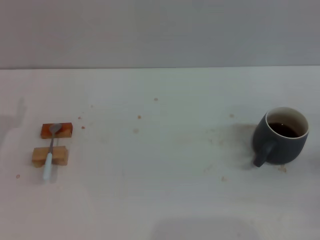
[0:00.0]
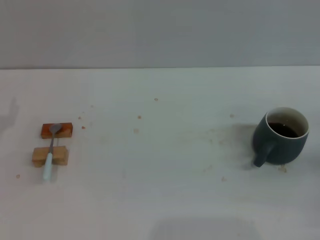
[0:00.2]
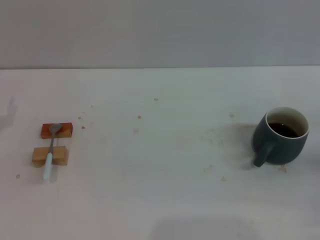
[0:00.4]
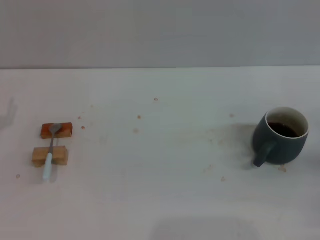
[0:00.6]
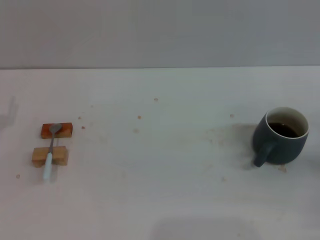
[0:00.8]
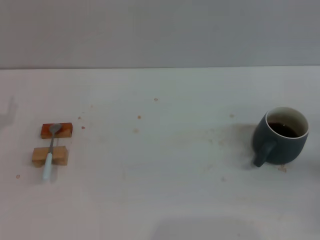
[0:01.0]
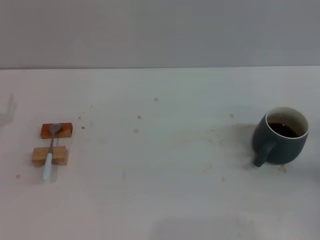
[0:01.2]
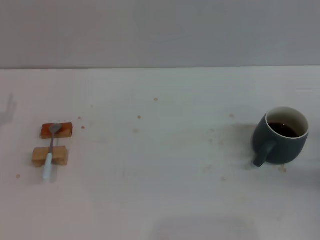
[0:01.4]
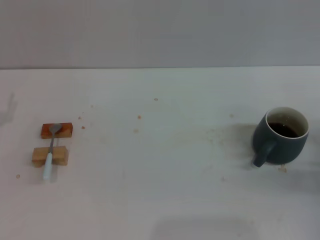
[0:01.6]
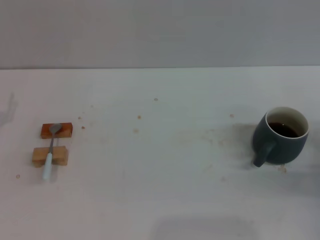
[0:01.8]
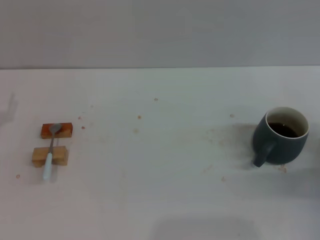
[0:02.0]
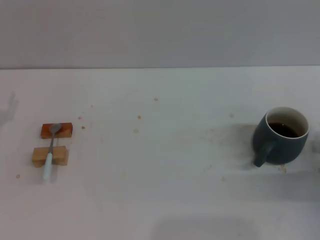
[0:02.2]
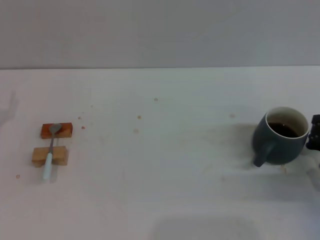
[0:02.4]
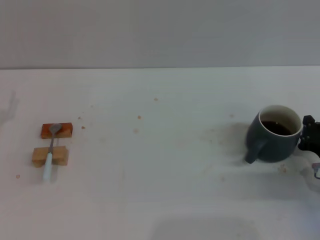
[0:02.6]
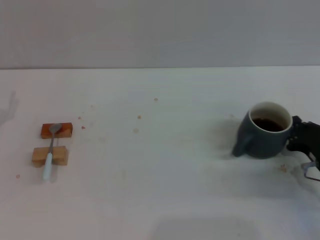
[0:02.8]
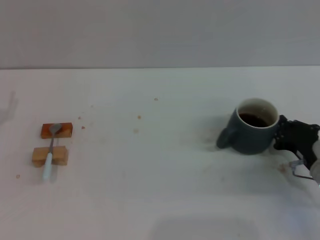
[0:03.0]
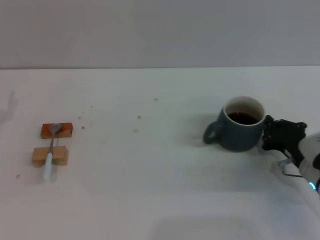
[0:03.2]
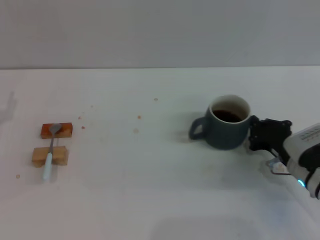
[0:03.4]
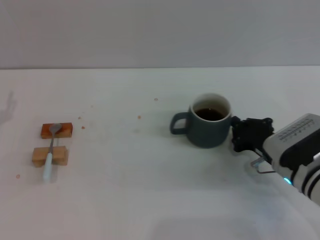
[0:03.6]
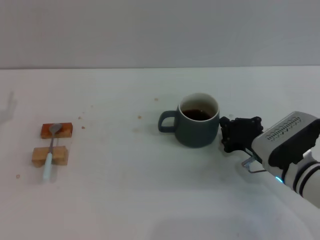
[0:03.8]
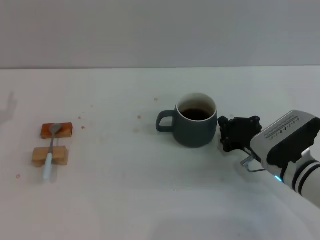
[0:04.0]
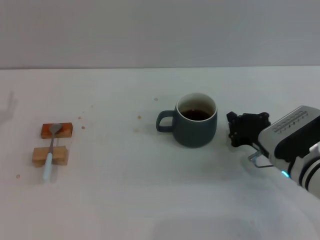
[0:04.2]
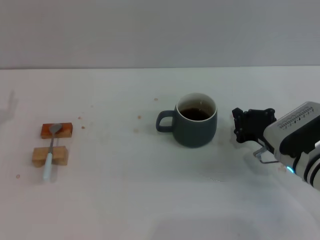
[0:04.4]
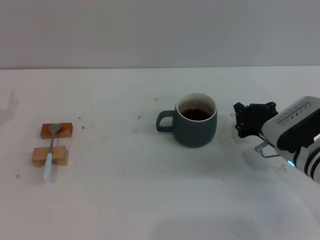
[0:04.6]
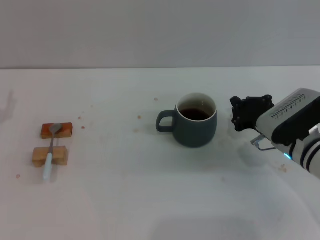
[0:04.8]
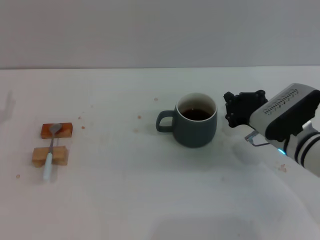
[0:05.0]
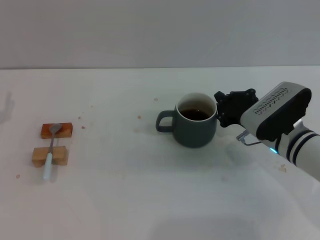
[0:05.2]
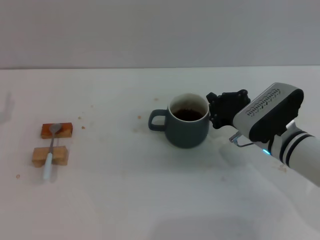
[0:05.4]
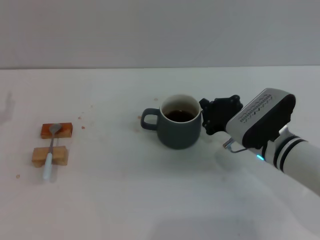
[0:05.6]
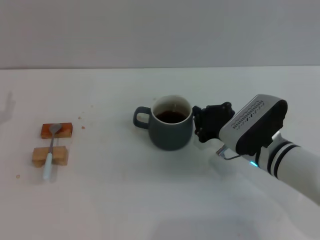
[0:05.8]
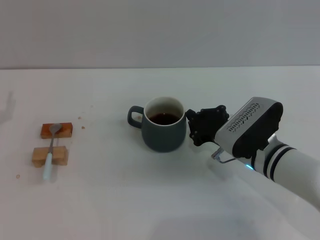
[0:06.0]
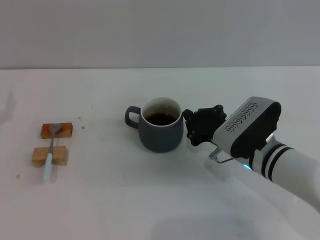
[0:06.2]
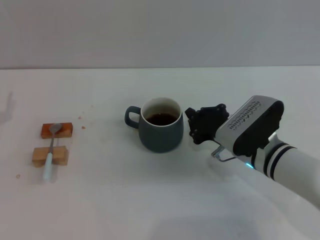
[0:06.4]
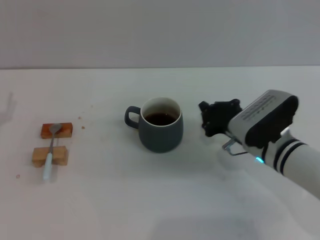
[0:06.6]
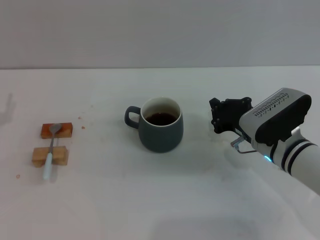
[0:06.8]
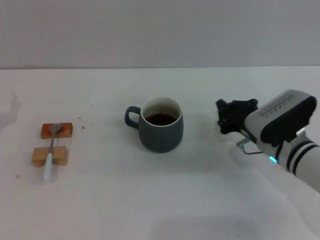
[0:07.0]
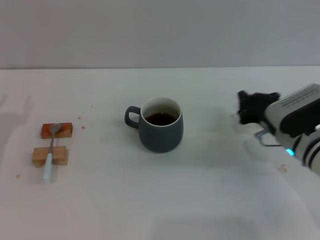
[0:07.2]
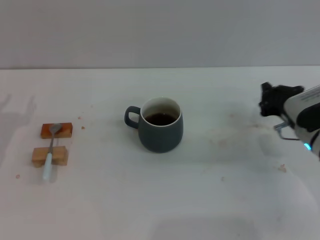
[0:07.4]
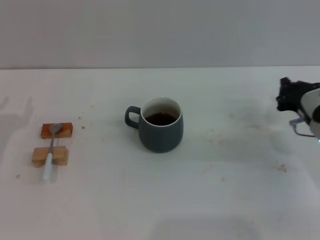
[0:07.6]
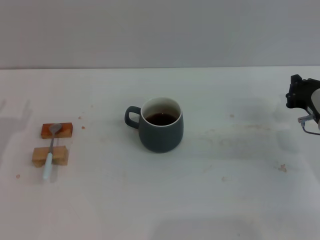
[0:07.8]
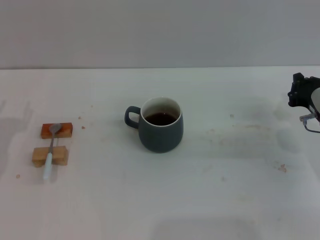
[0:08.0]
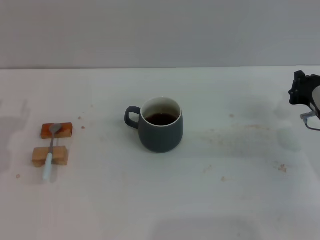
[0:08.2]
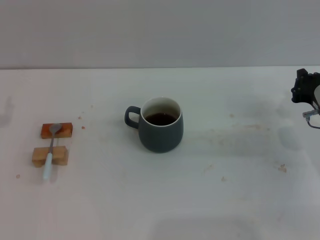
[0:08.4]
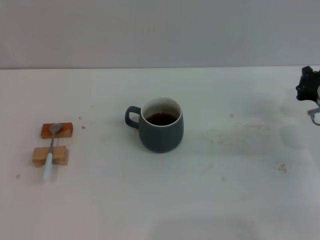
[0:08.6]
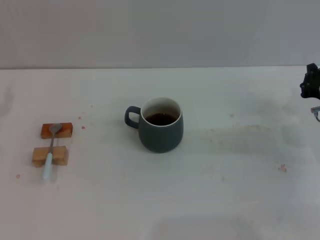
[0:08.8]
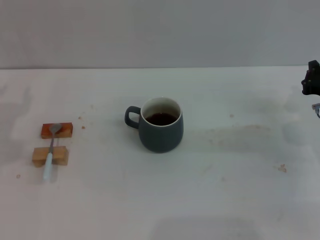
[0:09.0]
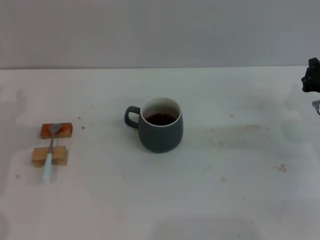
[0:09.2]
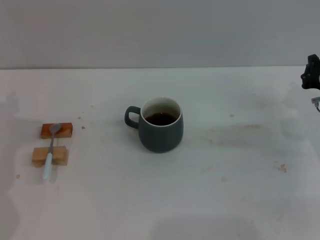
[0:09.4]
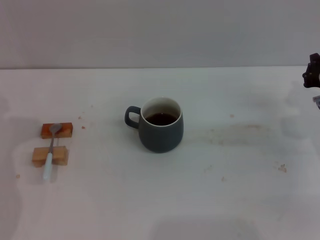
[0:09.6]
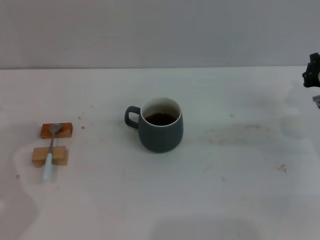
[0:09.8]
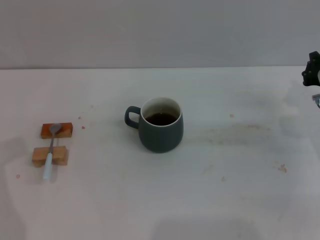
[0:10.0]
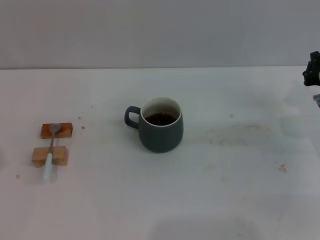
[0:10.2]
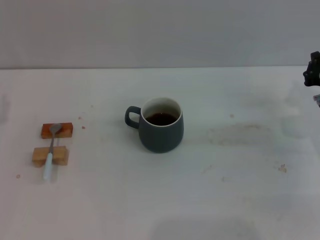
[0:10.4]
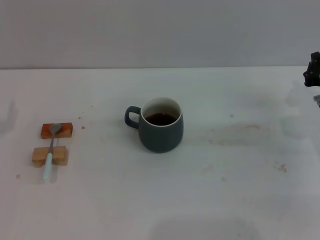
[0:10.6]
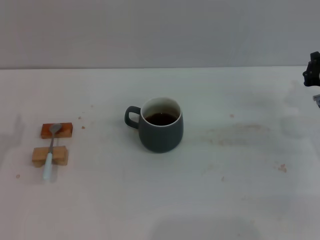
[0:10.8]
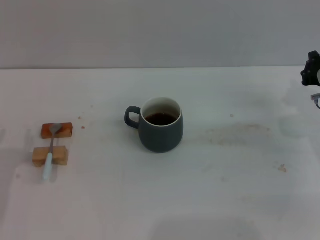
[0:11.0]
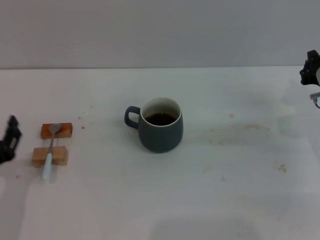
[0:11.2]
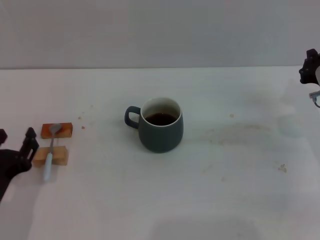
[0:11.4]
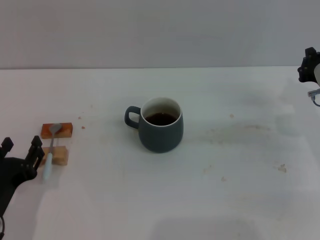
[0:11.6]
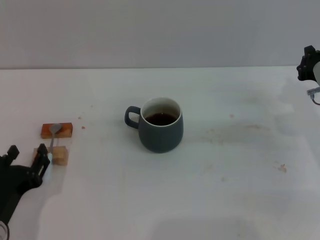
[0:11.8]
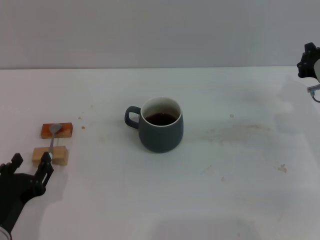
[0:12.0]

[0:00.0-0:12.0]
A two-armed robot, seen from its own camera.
Task of the whole recording: Move the grey cup to the center, lift the blue spoon, stir it three times in the cup, and put the spoon into the cup.
Step, 0:00.0 to 0:07.6: Move the cup with coffee to the center of view with the right gripper.
0:01.6 to 0:03.0: The right gripper shifts approximately 10 cm to the left.
0:03.0 to 0:04.4: The right gripper shifts by approximately 5 cm.
0:04.4 to 0:06.0: The right gripper travels to the left by approximately 5 cm.
0:06.0 to 0:07.6: The right gripper goes about 10 cm to the right.
0:10.4 to 0:12.0: The left gripper shifts approximately 20 cm to the right, backward and downward.

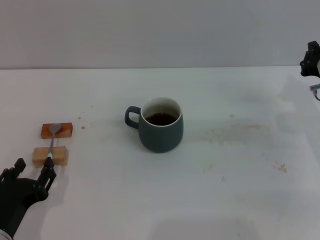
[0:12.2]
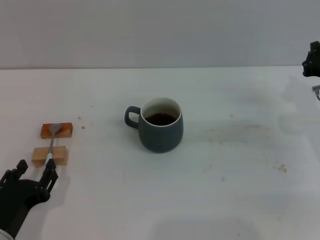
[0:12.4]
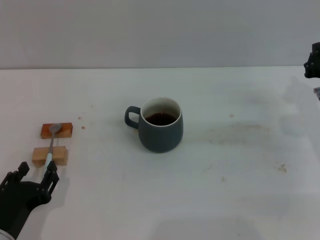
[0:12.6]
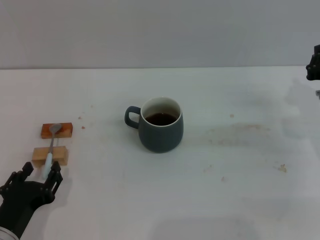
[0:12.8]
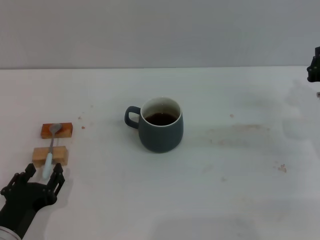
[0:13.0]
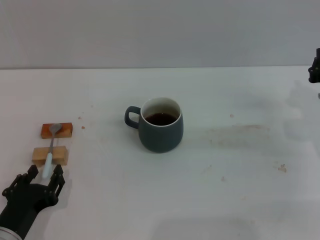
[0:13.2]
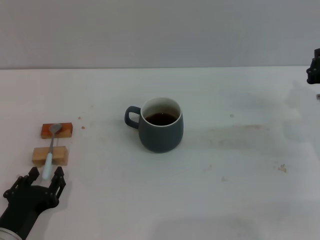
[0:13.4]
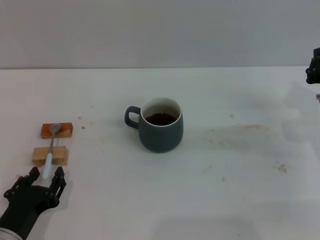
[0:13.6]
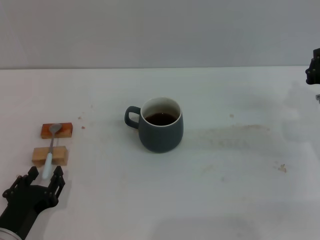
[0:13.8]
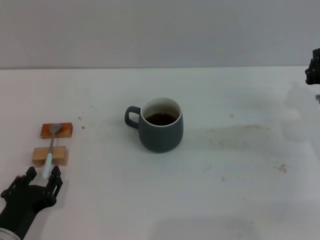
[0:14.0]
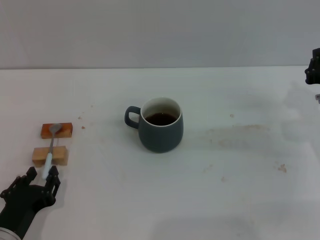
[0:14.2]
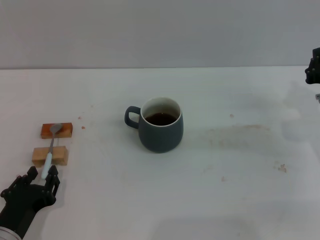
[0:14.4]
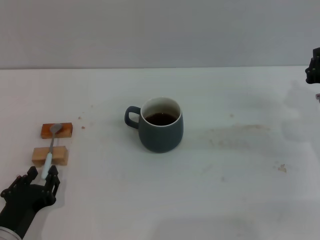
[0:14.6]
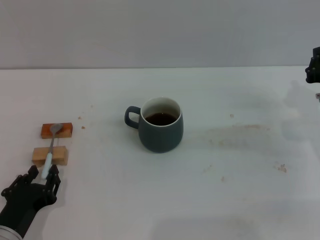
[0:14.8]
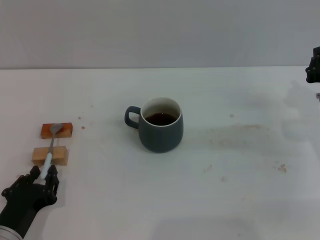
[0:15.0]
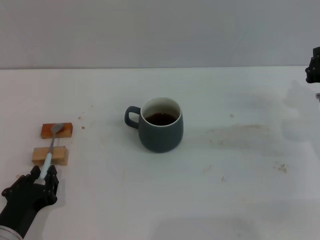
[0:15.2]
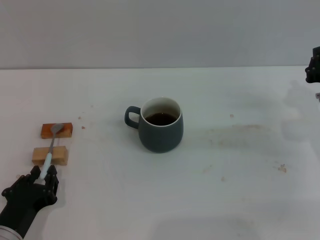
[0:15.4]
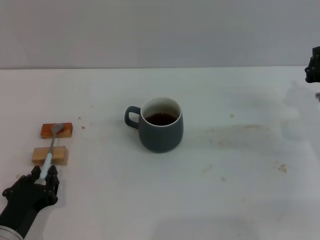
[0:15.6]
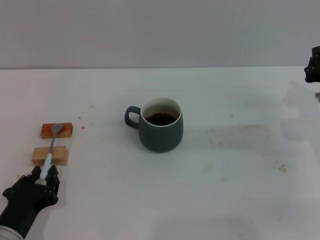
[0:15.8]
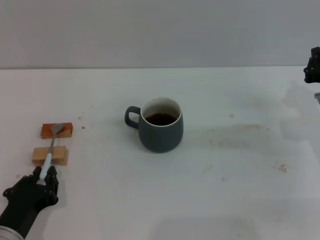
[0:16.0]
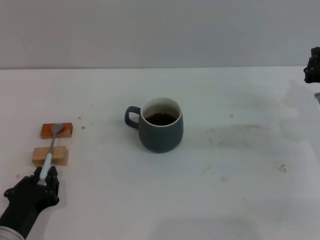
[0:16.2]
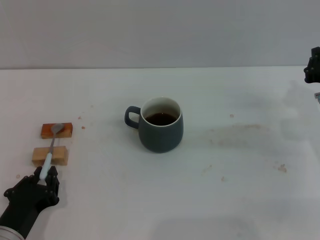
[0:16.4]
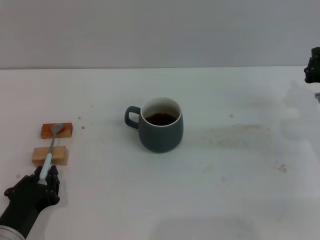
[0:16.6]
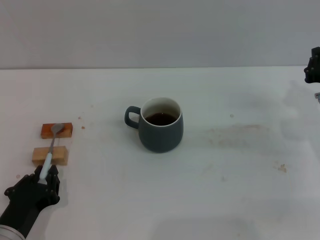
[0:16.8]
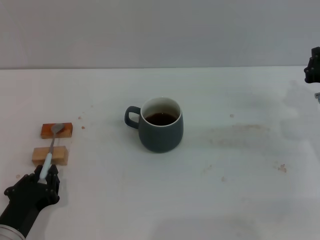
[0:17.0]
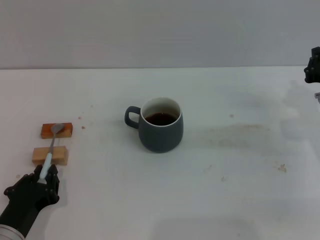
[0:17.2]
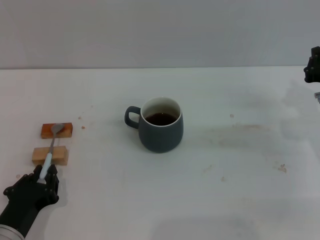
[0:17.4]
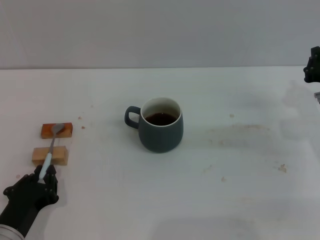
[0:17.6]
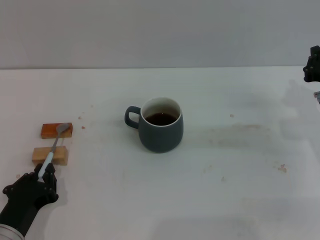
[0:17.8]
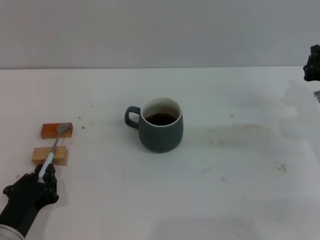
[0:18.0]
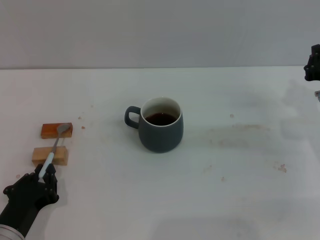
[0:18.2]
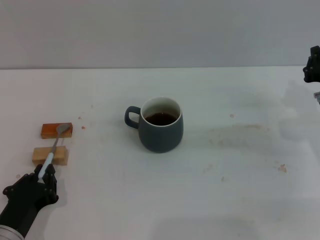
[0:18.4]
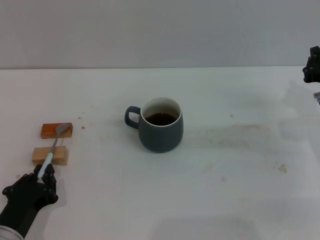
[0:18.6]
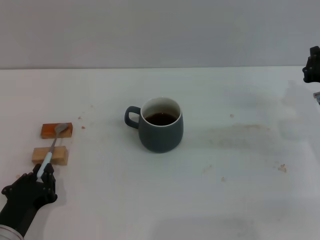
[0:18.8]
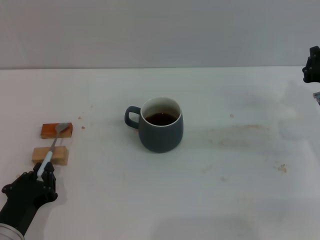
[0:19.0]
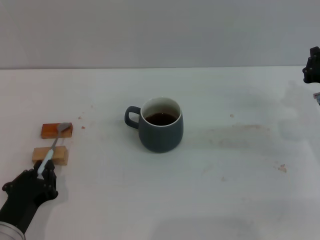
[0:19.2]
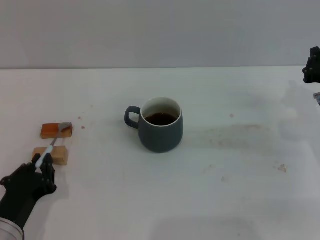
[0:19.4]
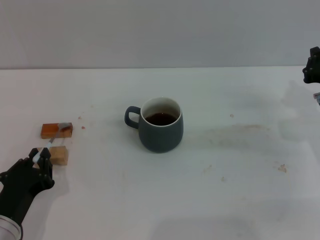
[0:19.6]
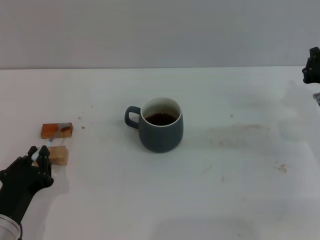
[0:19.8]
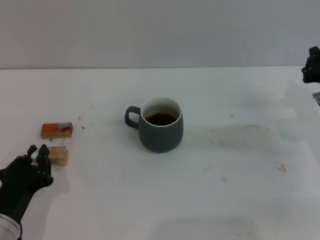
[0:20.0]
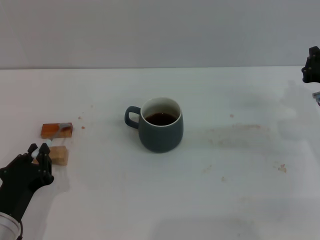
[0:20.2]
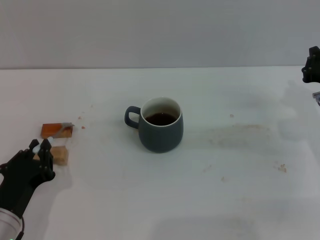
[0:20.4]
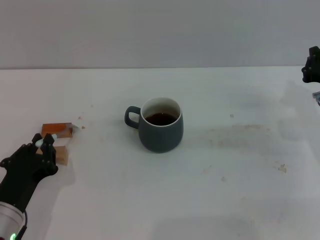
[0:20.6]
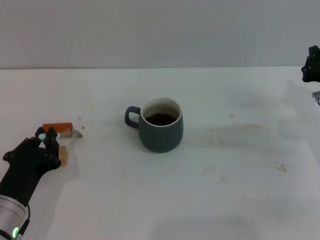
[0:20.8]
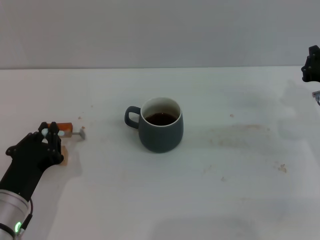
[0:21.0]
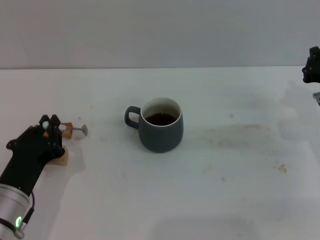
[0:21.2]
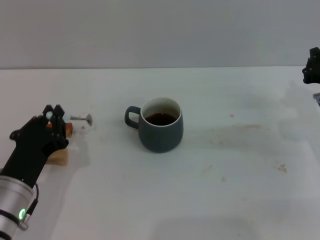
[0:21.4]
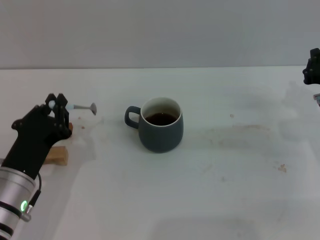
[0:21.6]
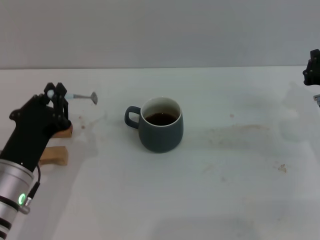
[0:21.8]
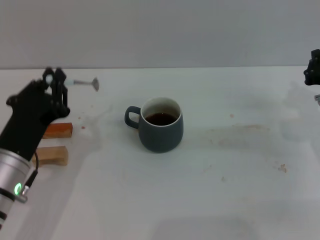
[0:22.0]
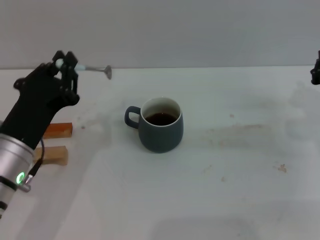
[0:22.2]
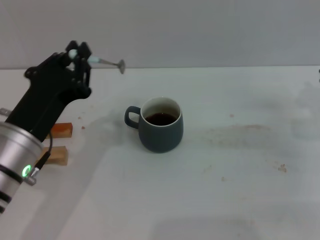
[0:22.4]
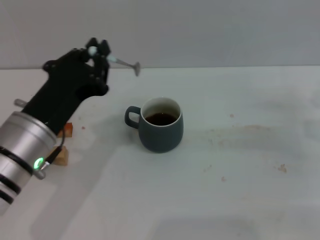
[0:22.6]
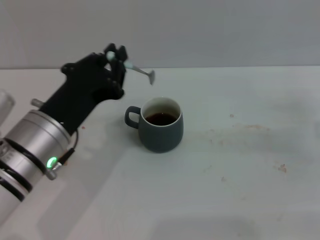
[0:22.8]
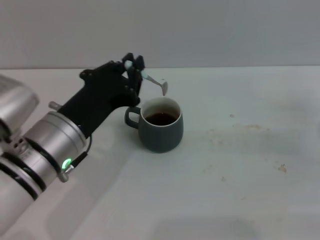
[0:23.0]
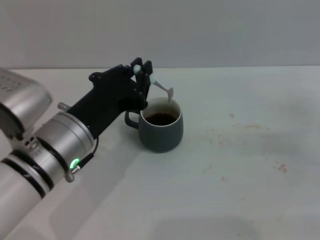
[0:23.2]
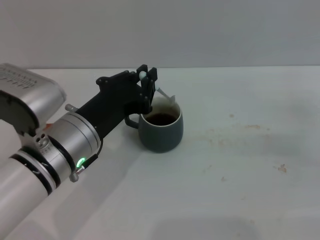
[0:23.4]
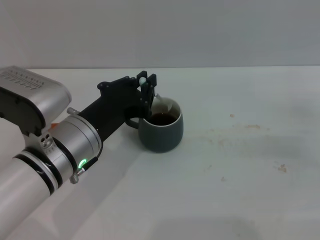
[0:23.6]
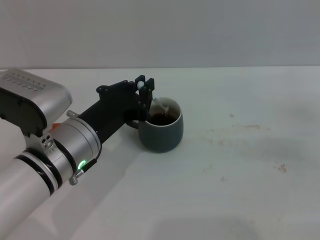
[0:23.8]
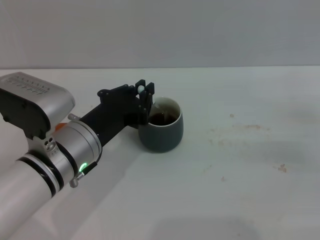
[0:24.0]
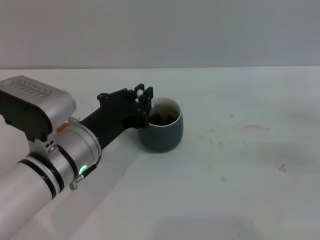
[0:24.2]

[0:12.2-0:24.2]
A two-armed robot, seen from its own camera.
Task of the whole recording: Move the grey cup to the center, lift the blue spoon, stir it three times in the cup, and put the spoon into the cup.
Step, 0:12.2 to 0:21.8: Pick up the spoon with the left gripper.
0:12.2 to 0:13.8: The grippers stay close to where they were, moving slightly.
0:13.8 to 0:15.2: The left gripper closes its fingers.
0:15.2 to 0:18.2: Both grippers stay put.
0:18.2 to 0:21.2: The grippers stay close to where they were, moving slightly.
0:21.2 to 0:22.6: The right gripper moves some 5 cm, while the left gripper moves upward, roughly 10 cm.
0:22.6 to 0:24.2: The left gripper changes place by about 5 cm.
